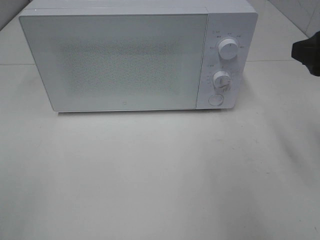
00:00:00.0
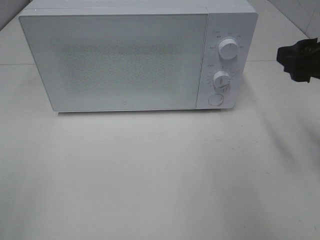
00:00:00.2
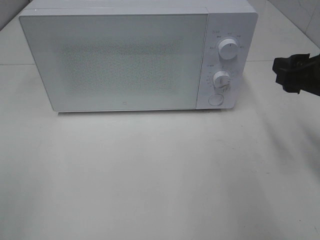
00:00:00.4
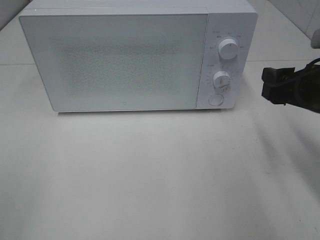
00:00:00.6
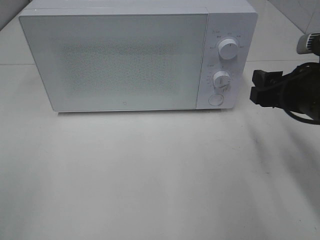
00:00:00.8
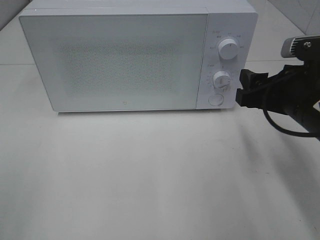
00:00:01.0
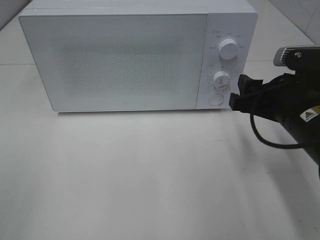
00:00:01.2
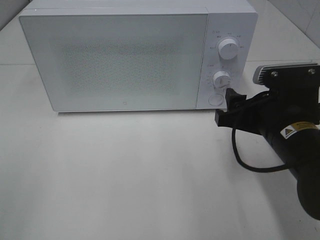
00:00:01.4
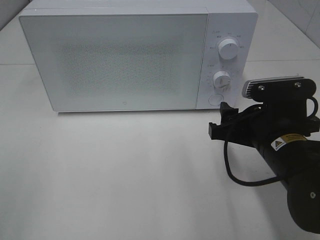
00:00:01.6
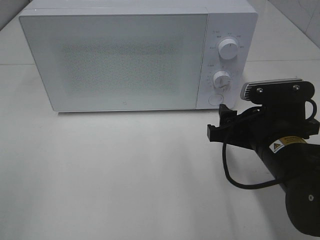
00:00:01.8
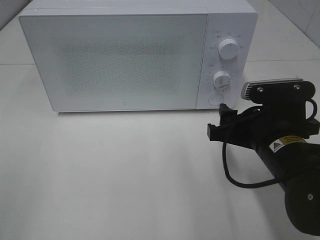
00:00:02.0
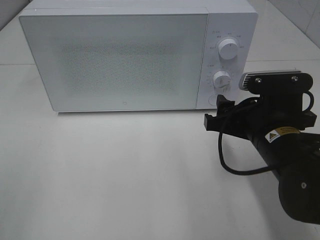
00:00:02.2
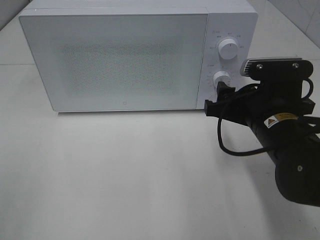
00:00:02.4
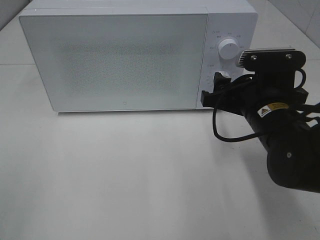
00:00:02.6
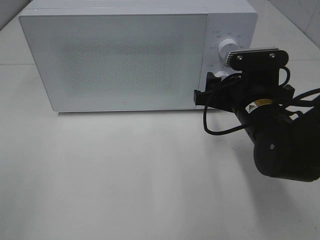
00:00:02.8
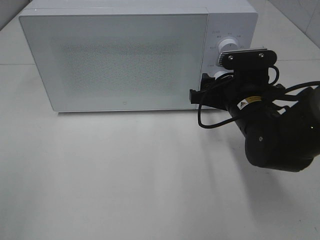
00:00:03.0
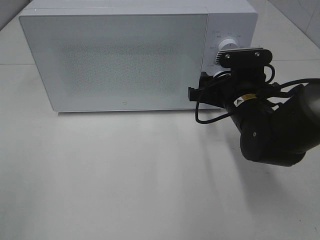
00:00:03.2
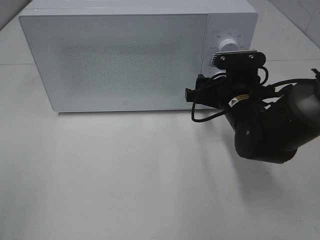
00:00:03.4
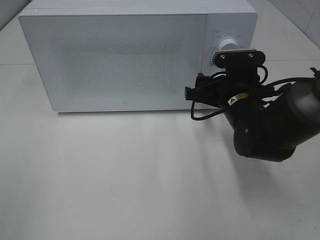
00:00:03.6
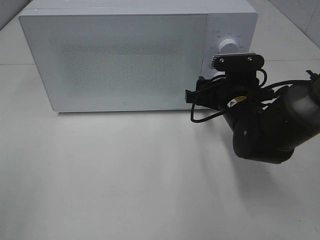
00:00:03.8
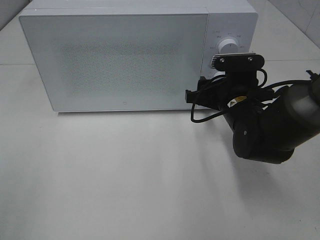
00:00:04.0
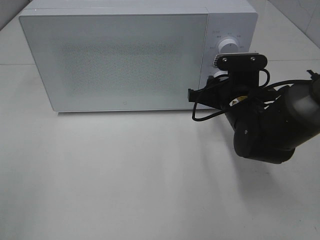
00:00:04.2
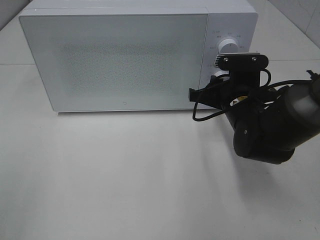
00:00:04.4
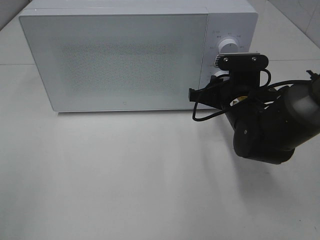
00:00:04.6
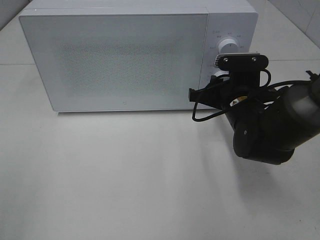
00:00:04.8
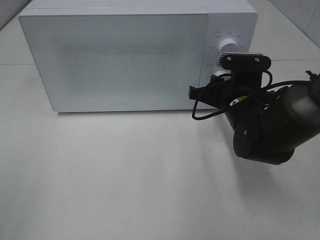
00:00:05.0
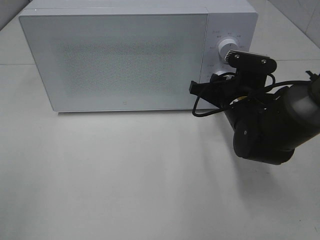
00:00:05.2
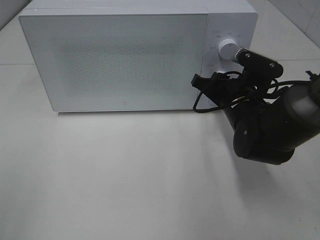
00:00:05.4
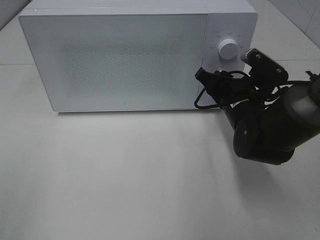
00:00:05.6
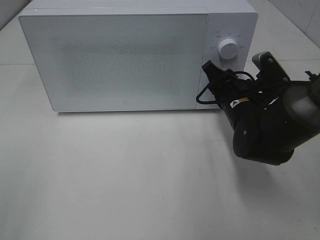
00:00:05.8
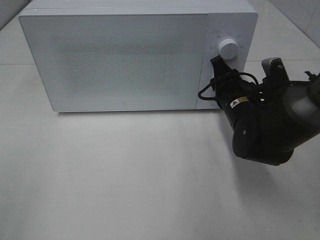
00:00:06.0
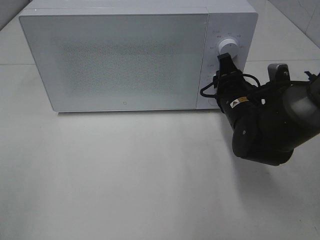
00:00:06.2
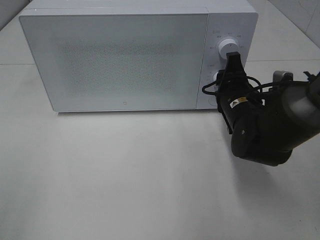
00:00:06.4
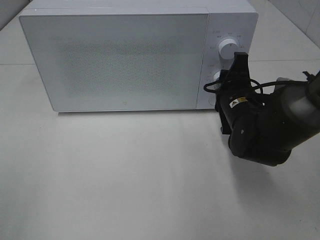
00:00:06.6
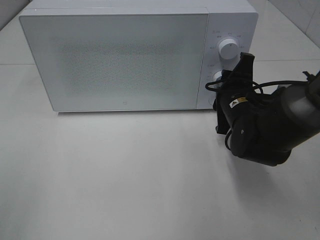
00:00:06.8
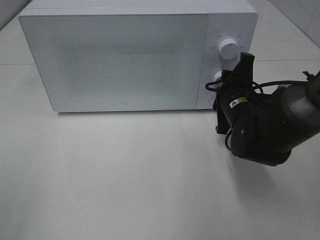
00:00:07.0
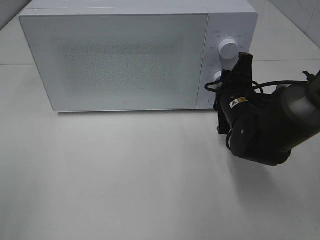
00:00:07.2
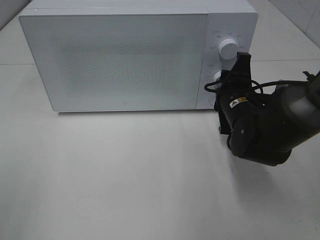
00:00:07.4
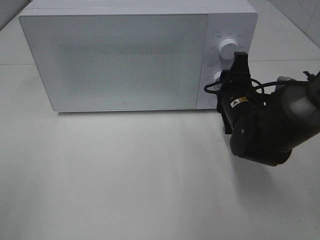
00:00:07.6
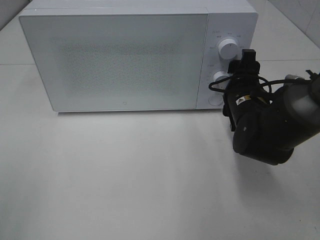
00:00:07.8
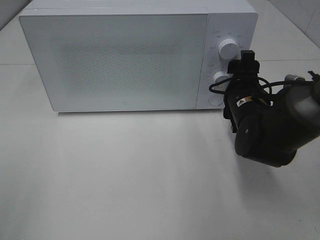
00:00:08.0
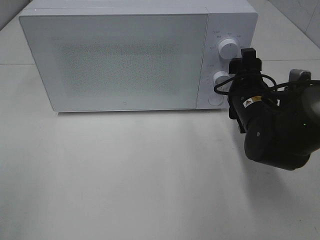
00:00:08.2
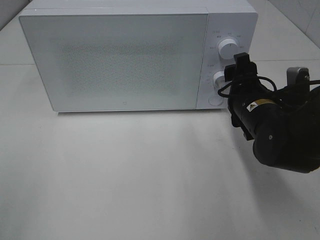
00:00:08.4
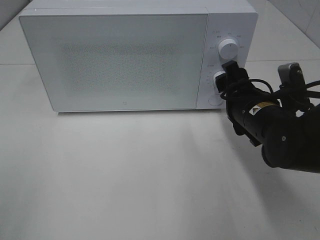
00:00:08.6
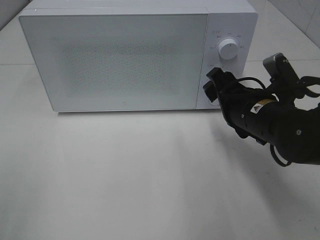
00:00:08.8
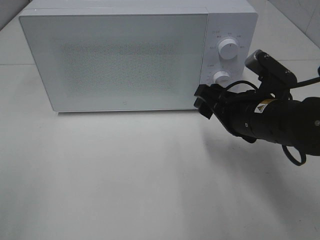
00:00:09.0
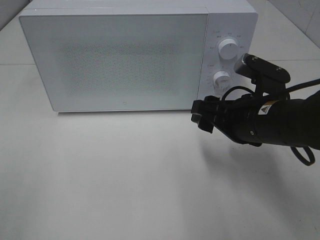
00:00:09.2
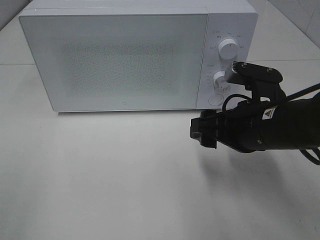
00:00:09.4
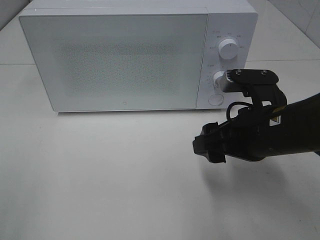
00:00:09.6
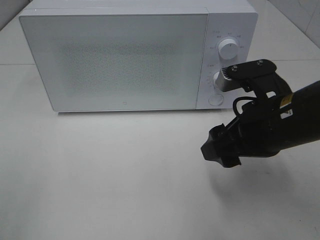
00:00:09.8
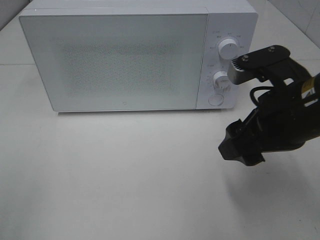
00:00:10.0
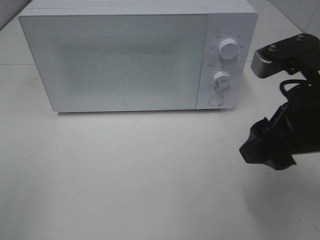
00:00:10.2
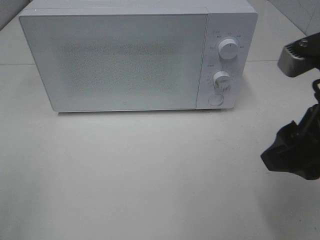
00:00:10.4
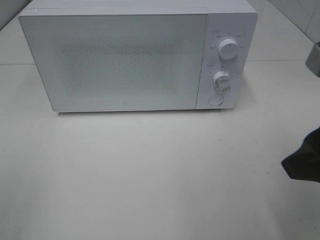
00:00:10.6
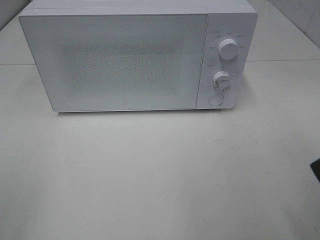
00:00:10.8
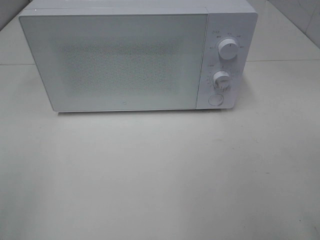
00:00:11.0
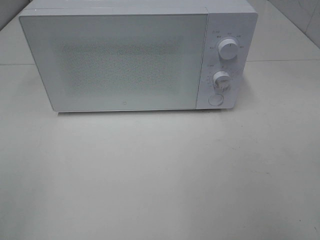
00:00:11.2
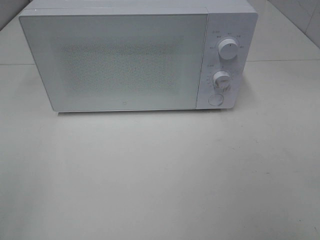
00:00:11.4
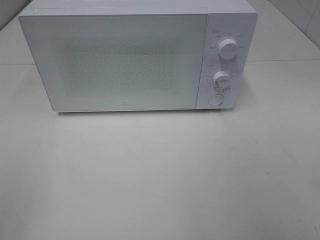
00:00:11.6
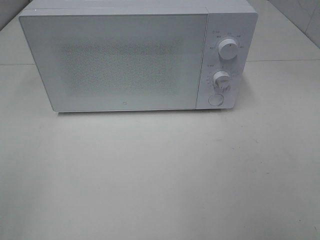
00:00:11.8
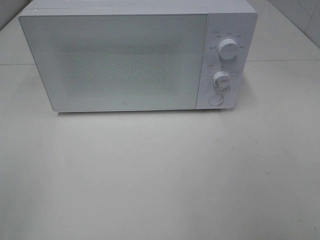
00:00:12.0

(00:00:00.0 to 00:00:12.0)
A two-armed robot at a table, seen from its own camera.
Task of the whole recording: Heat Sandwich.
Step, 00:00:00.0 - 00:00:08.0: Right hand: twist timer button.
00:00:00.0 - 00:00:01.6: The right gripper travels downward and to the left by roughly 15 cm.
00:00:01.6 - 00:00:03.0: The right gripper moves forward, approximately 10 cm.
00:00:03.0 - 00:00:04.4: The right gripper closes.
00:00:07.6 - 00:00:09.0: The right gripper is displaced backward by roughly 5 cm.
00:00:09.0 - 00:00:10.4: The right gripper goes about 15 cm upward and backward.
00:00:10.4 - 00:00:12.0: The right gripper goes some 20 cm backward and to the right.

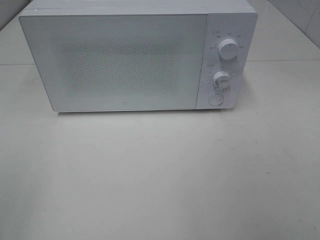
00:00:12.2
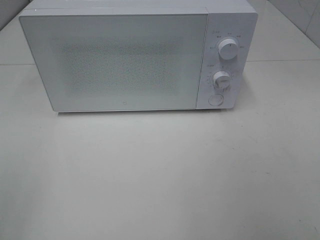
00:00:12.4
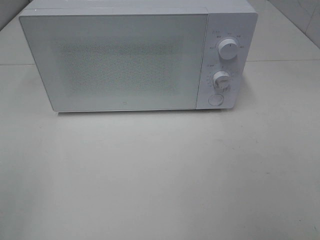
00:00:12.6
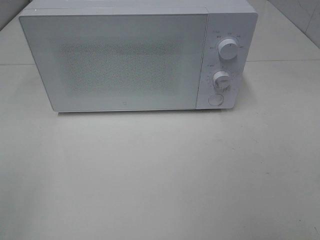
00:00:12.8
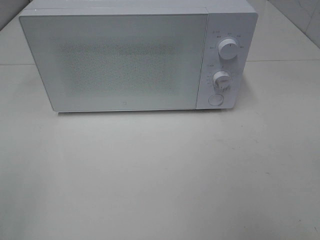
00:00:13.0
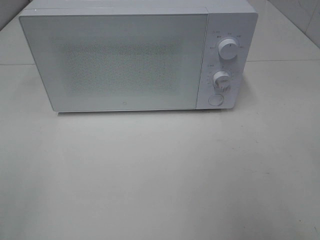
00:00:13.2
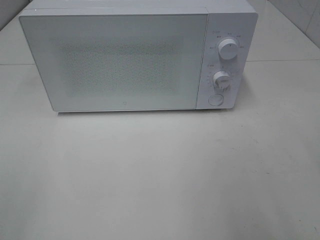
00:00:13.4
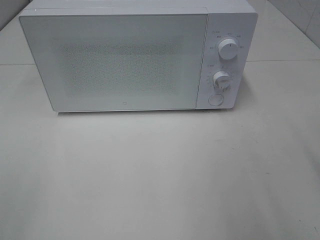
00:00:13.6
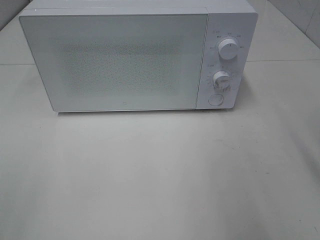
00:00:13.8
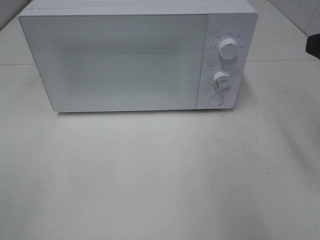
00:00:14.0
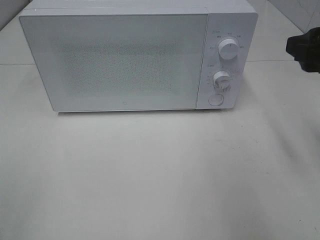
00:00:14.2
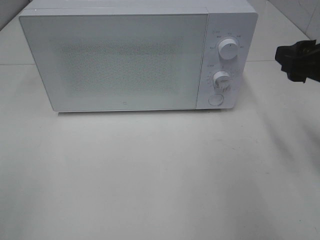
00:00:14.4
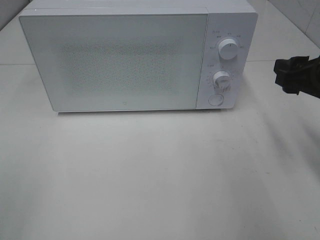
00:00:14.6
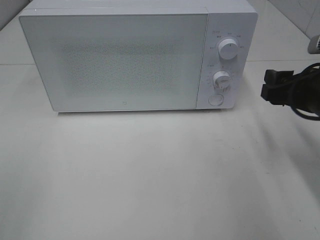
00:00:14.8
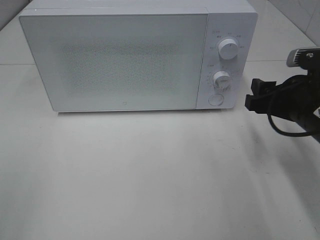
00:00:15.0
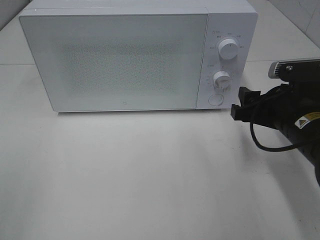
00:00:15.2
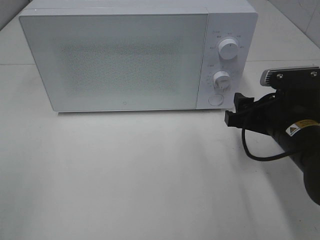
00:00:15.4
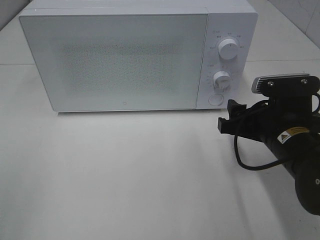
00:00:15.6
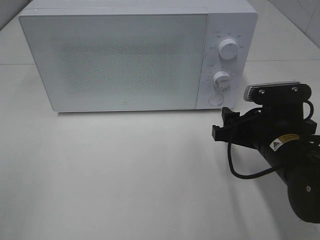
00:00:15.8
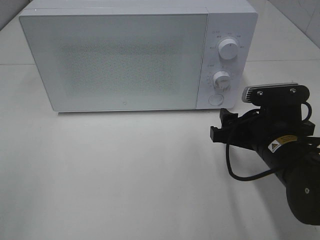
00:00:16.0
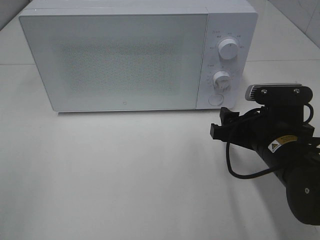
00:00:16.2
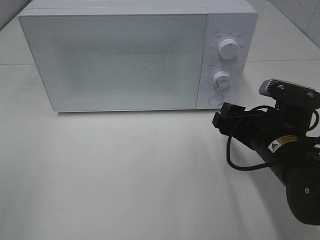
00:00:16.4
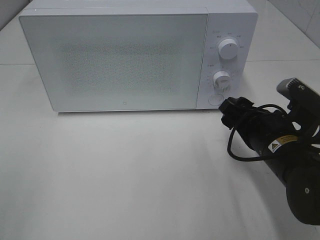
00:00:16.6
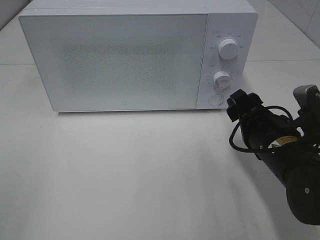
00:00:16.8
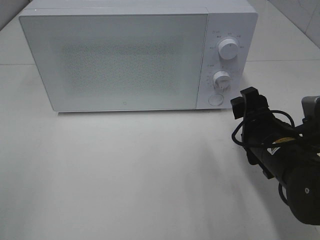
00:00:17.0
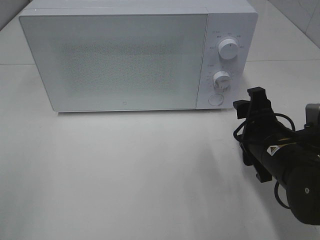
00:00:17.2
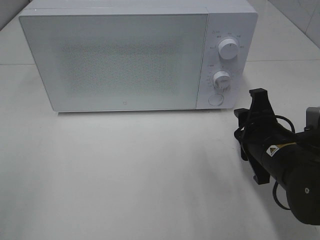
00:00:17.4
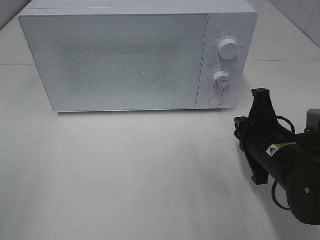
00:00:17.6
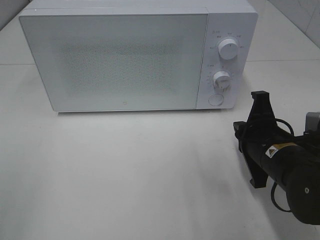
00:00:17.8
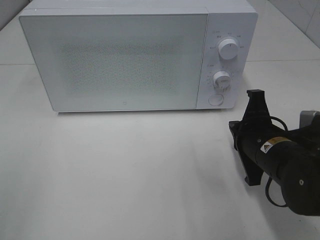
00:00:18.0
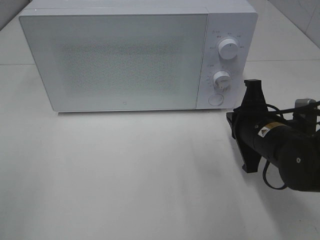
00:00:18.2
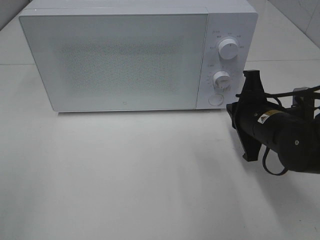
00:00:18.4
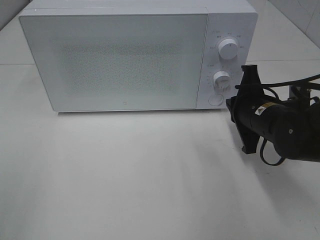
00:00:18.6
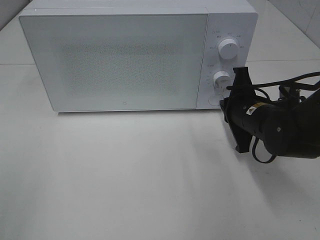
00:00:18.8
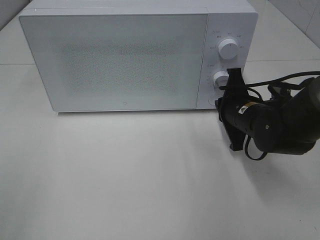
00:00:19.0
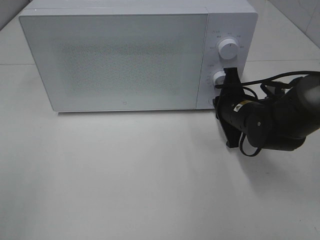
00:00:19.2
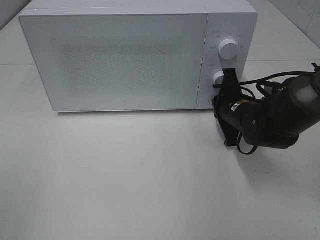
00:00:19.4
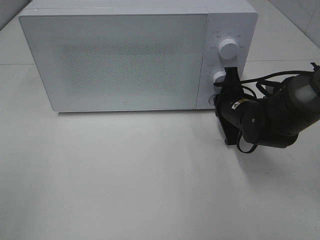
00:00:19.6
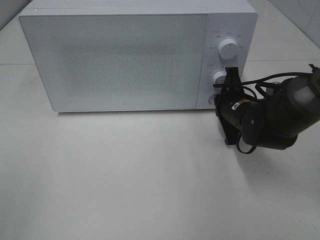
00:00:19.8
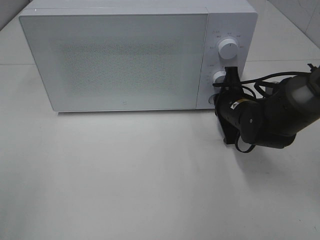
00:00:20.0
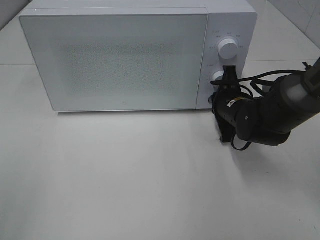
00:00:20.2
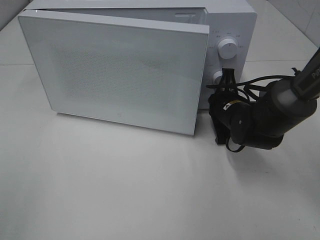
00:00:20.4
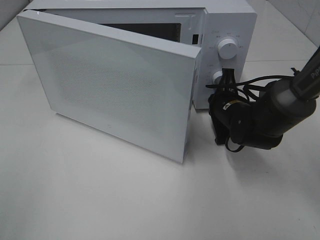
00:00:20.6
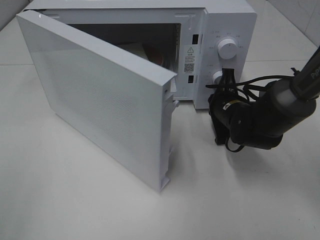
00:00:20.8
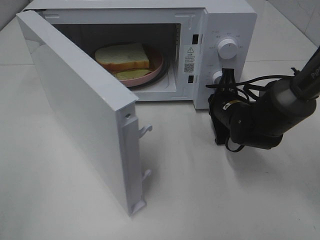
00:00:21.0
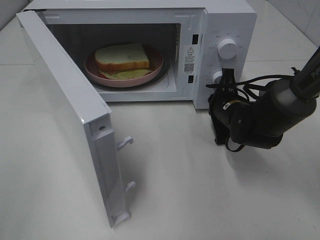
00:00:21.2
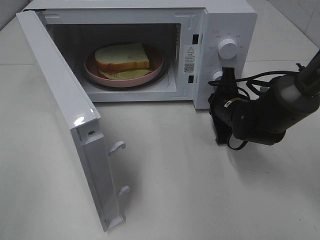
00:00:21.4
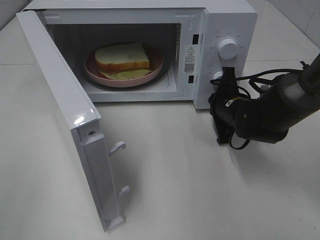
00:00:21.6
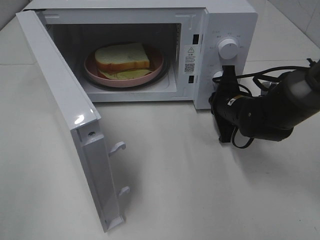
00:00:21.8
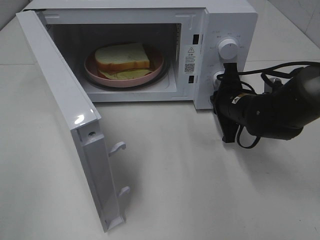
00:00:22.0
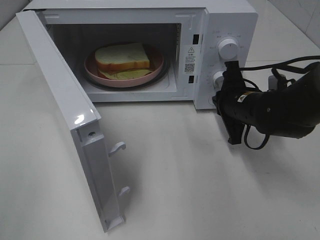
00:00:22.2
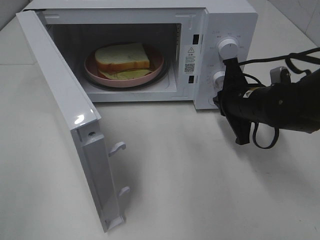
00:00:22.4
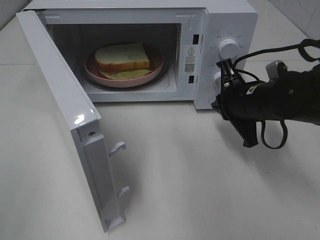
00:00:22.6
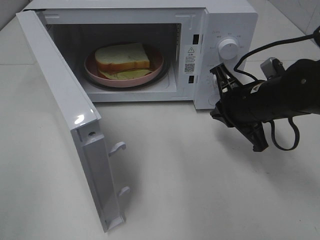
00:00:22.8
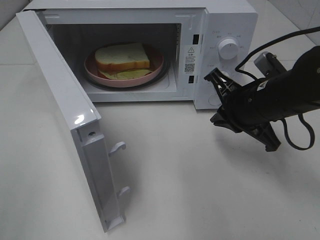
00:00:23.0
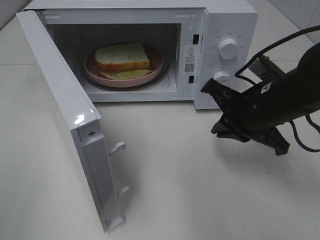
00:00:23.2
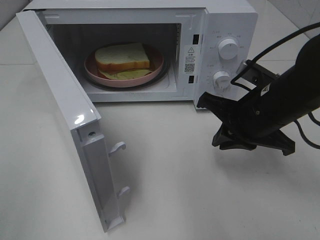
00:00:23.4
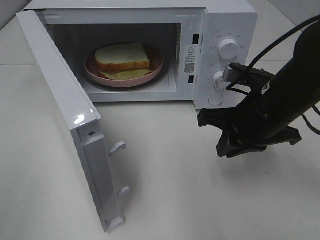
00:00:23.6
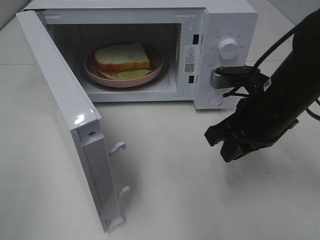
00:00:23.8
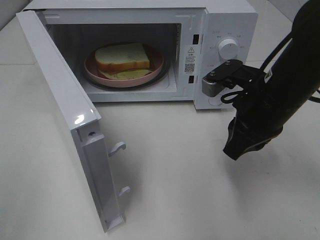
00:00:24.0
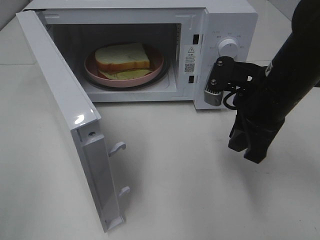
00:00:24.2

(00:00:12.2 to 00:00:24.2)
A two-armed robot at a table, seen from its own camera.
Task of the whole recording: Heat Sandwich.
Step, 00:00:12.2 - 00:00:22.2: Right hand: press the switch.
00:00:12.2 - 00:00:13.8: The right gripper moves forward, approximately 15 cm.
00:00:13.8 - 00:00:15.2: The right gripper heads downward and forward, covering roughly 15 cm.
00:00:16.6 - 00:00:18.2: The right gripper closes up.
00:00:18.2 - 00:00:19.8: The right gripper is displaced forward by some 10 cm.
00:00:21.2 - 00:00:22.6: The right gripper heads upward and backward, covering approximately 10 cm.
00:00:22.6 - 00:00:24.2: The right gripper is displaced upward by some 5 cm.
